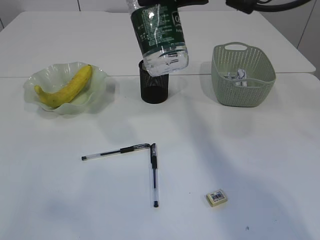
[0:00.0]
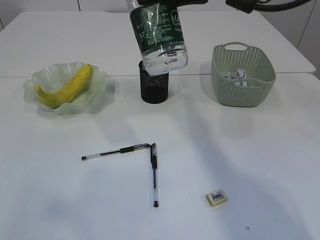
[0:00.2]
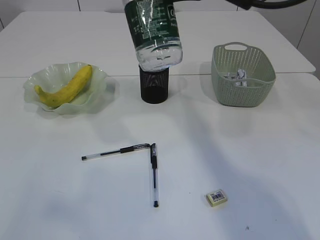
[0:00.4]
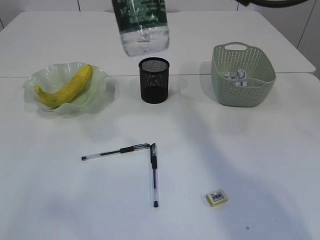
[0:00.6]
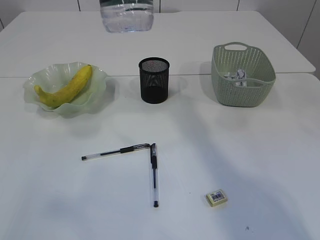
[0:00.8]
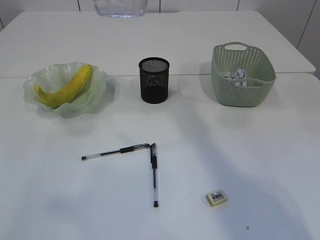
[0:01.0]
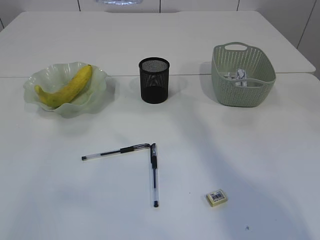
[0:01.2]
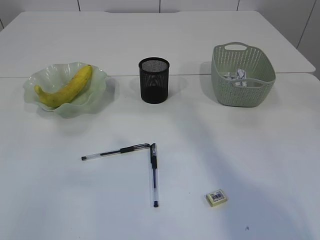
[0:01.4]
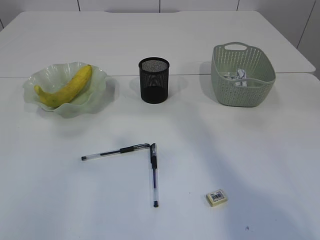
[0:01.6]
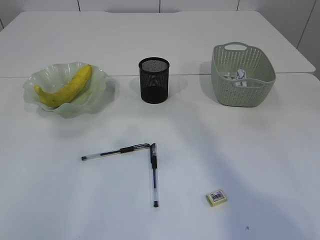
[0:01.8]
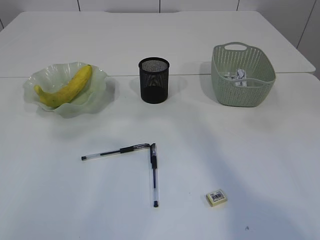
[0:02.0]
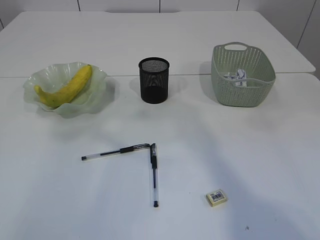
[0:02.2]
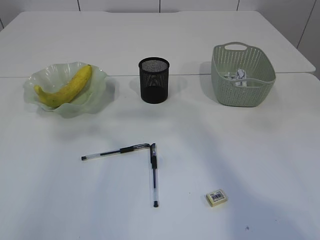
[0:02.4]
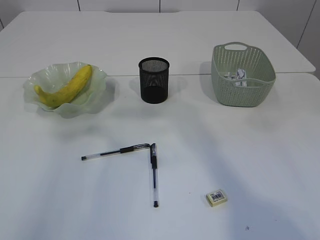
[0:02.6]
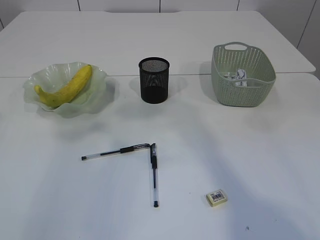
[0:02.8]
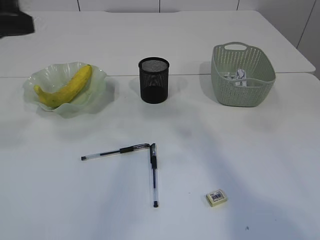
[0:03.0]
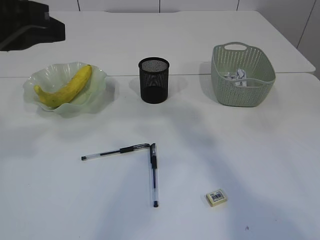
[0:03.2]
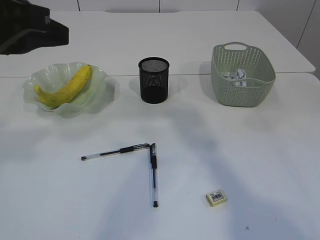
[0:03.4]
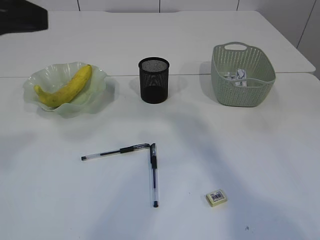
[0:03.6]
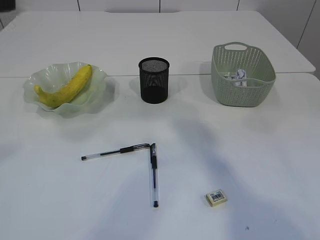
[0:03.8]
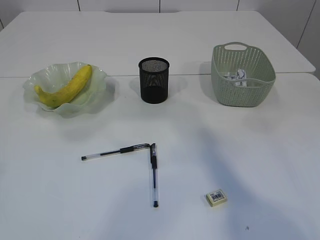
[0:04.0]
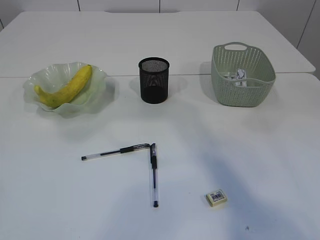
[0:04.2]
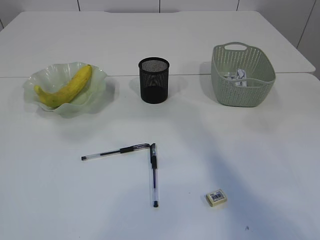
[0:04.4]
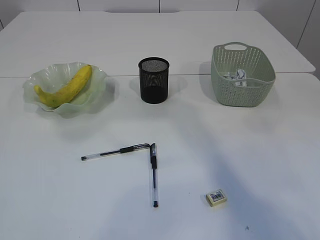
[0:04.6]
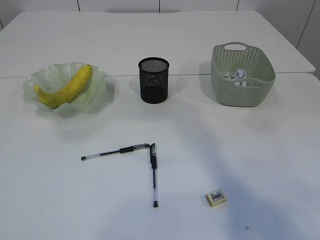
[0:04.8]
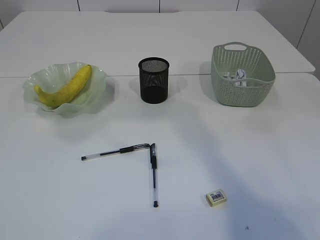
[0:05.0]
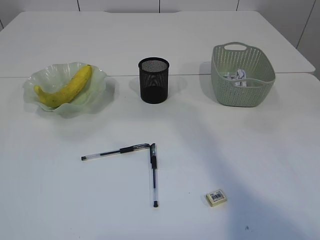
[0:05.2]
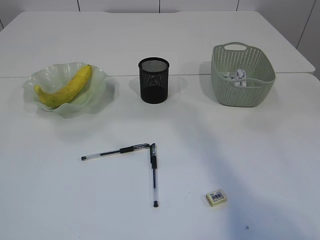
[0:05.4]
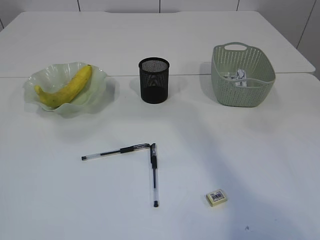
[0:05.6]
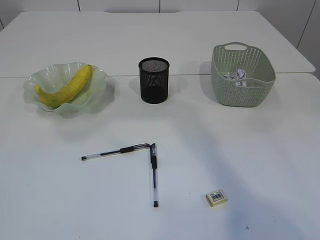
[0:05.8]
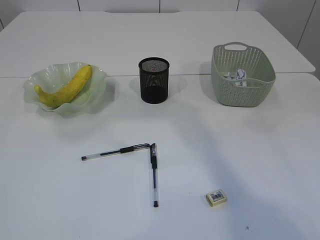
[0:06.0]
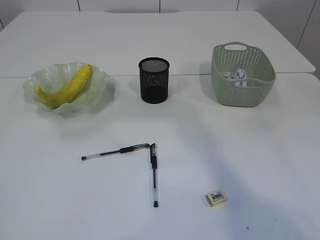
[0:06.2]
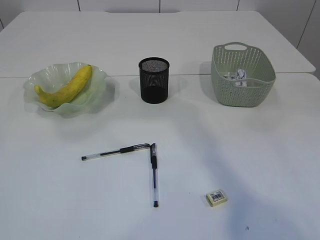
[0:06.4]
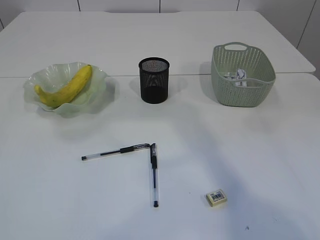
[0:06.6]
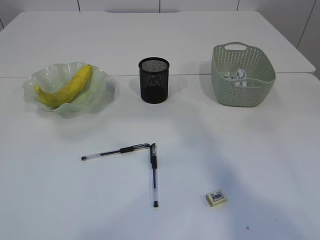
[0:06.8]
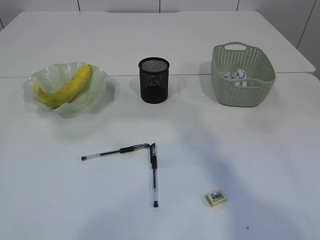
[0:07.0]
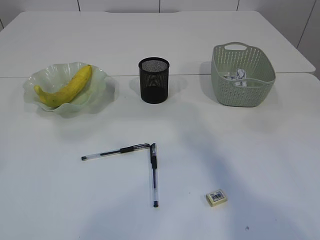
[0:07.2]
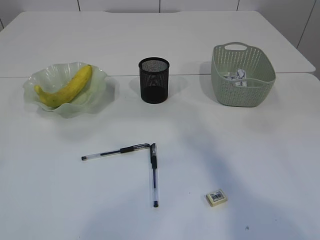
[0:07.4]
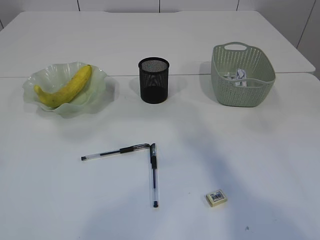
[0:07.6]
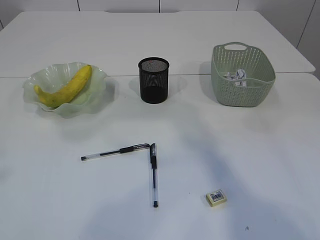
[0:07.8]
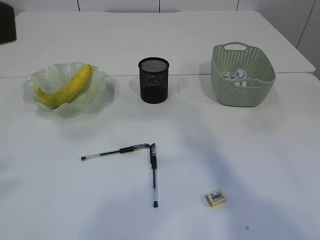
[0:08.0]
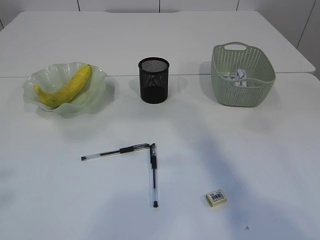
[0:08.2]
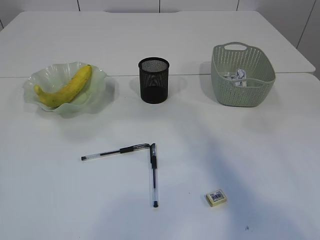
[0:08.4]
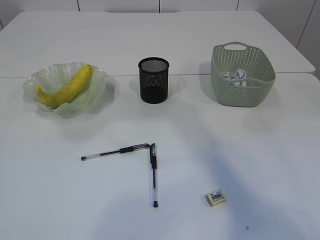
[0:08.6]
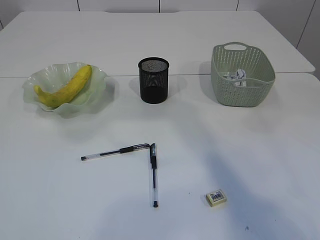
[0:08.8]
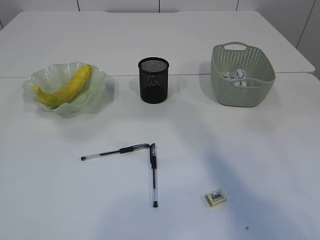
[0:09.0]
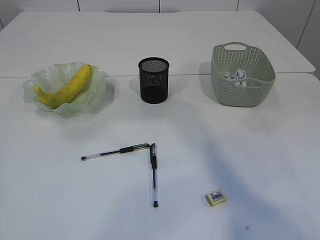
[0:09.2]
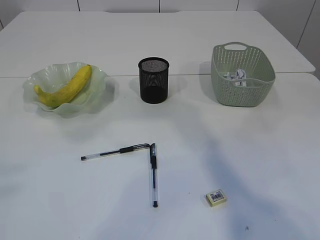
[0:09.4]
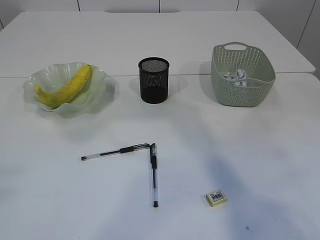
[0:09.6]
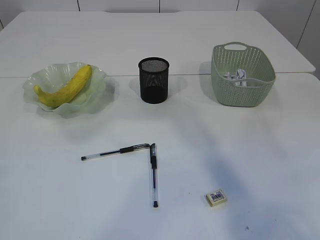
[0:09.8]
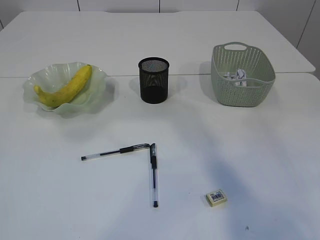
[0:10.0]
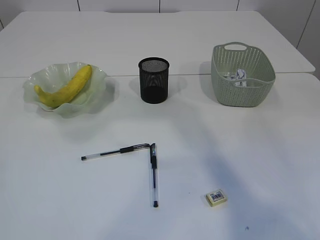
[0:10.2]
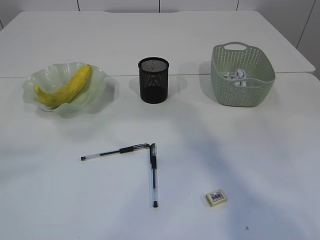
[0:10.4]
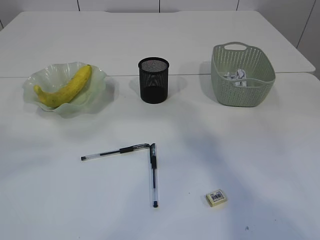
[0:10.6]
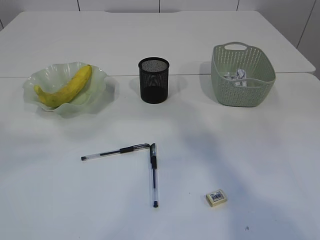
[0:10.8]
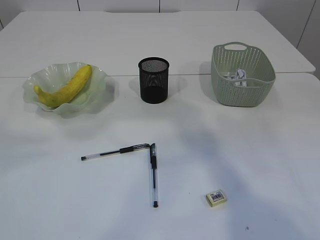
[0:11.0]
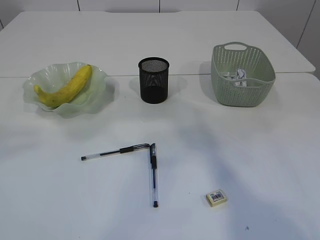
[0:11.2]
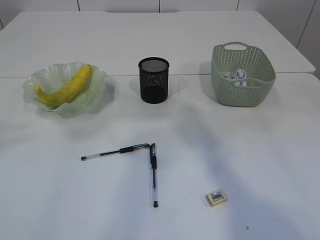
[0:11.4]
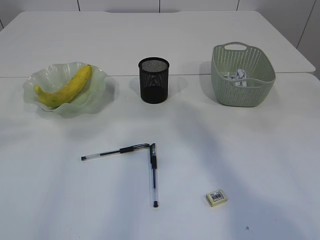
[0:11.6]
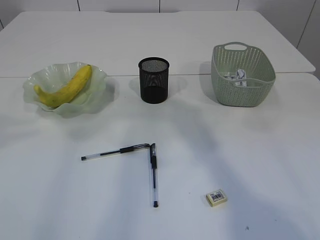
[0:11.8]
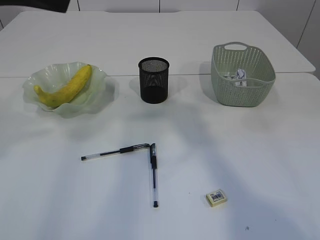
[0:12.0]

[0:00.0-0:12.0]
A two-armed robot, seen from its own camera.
0:00.0 to 0:01.6: The left gripper goes roughly 5 cm forward; the right gripper goes some 10 cm upward.
0:01.6 to 0:03.0: The left gripper heads forward, downward and to the right, covering about 20 cm.
0:03.0 to 0:04.4: The left gripper moves backward and upward, some 20 cm.
0:10.4 to 0:12.0: The left gripper heads forward and downward, covering about 15 cm.

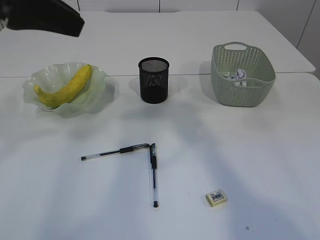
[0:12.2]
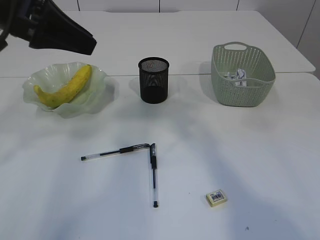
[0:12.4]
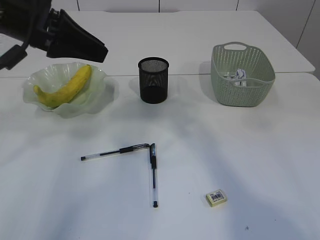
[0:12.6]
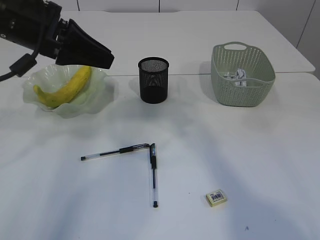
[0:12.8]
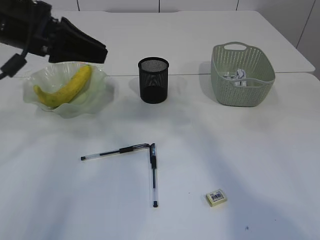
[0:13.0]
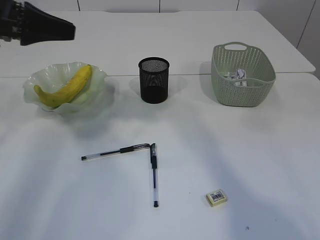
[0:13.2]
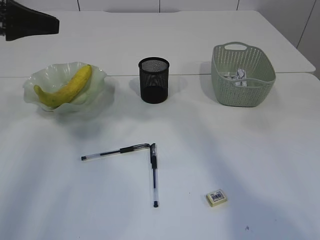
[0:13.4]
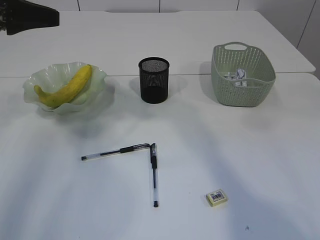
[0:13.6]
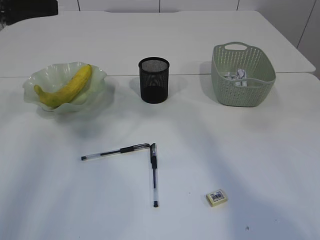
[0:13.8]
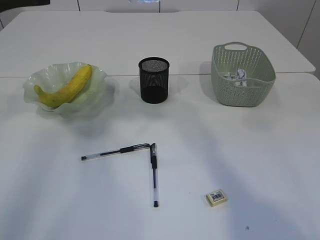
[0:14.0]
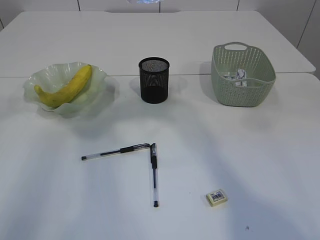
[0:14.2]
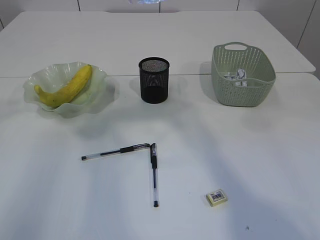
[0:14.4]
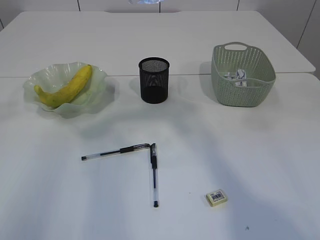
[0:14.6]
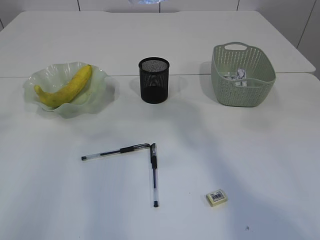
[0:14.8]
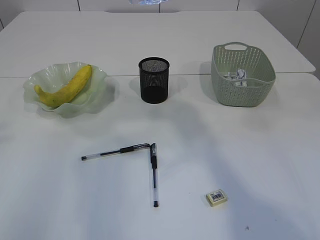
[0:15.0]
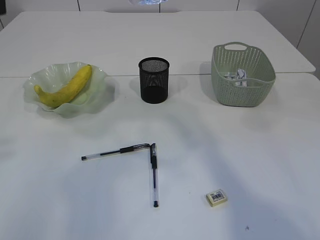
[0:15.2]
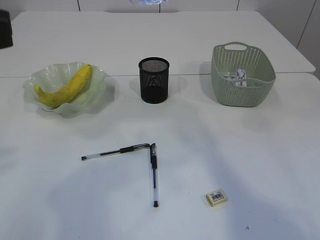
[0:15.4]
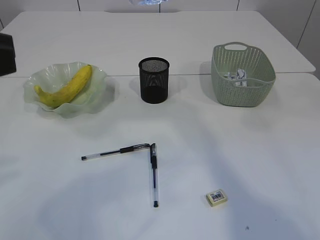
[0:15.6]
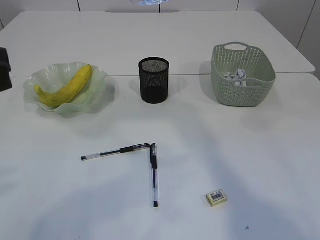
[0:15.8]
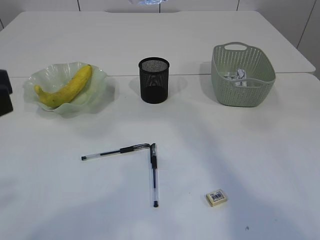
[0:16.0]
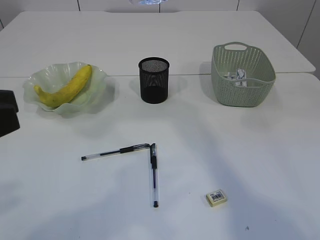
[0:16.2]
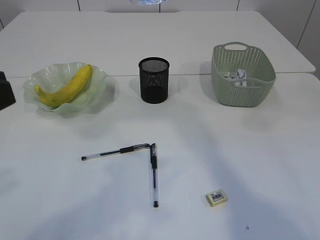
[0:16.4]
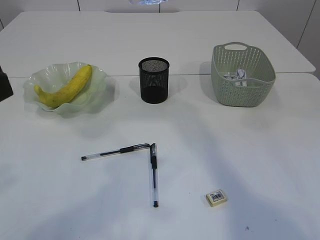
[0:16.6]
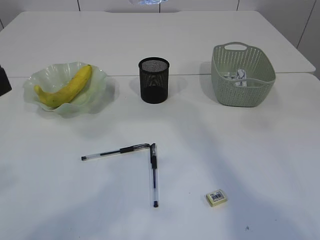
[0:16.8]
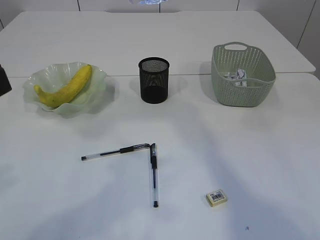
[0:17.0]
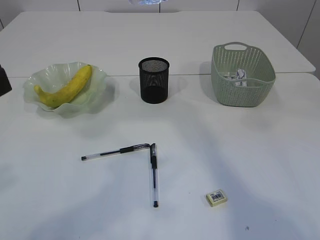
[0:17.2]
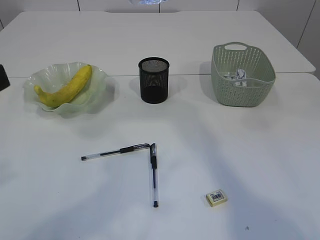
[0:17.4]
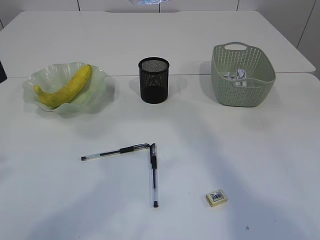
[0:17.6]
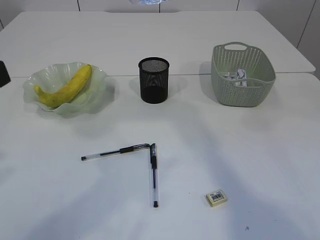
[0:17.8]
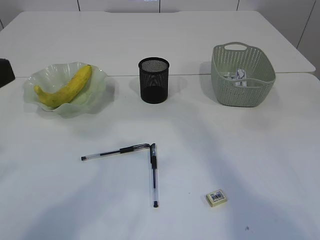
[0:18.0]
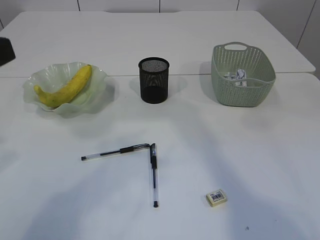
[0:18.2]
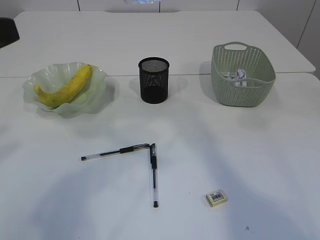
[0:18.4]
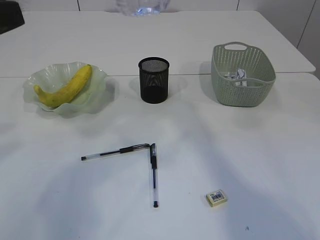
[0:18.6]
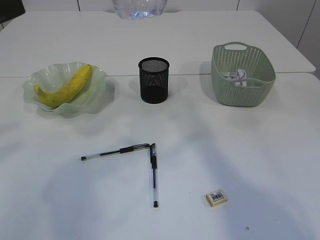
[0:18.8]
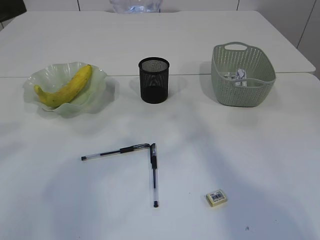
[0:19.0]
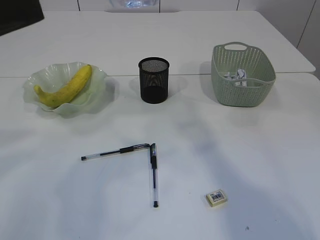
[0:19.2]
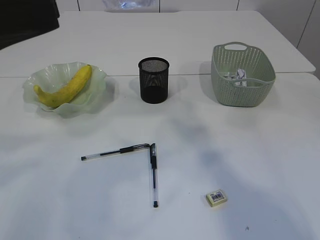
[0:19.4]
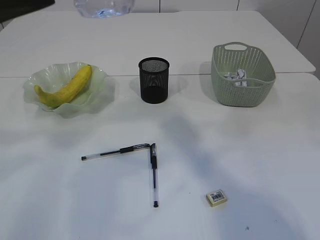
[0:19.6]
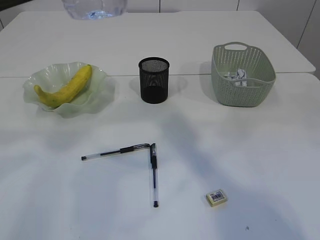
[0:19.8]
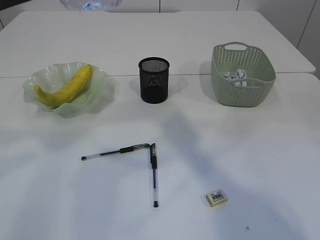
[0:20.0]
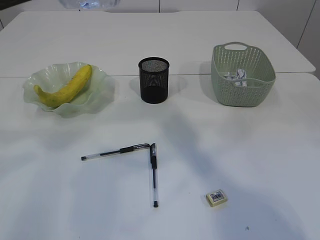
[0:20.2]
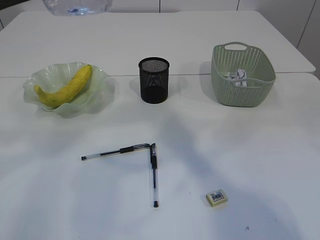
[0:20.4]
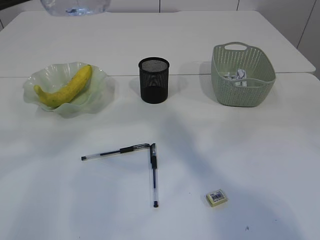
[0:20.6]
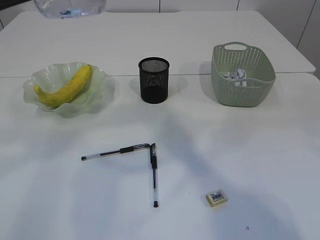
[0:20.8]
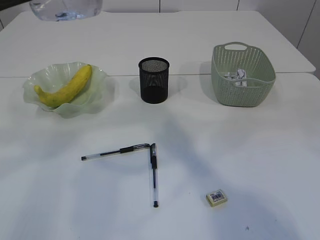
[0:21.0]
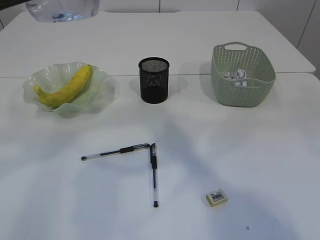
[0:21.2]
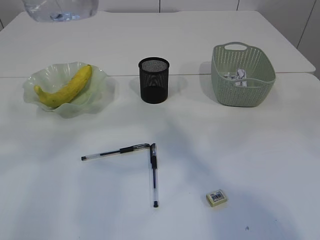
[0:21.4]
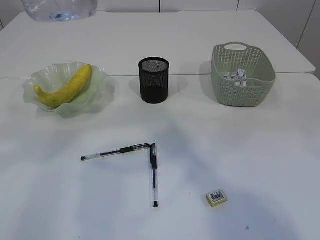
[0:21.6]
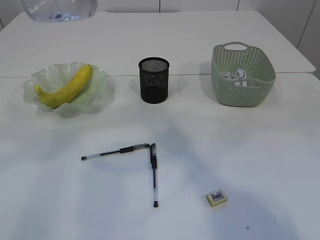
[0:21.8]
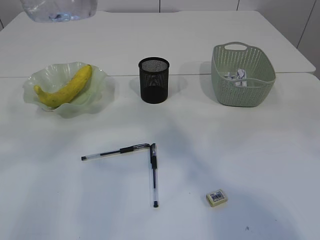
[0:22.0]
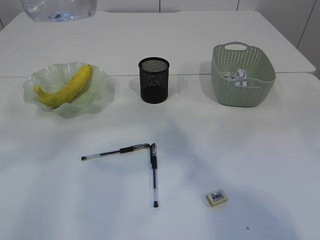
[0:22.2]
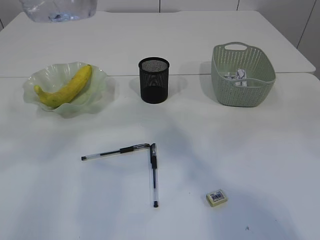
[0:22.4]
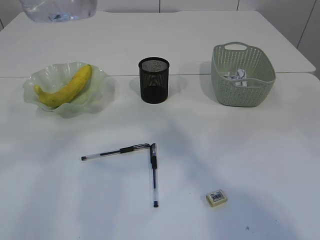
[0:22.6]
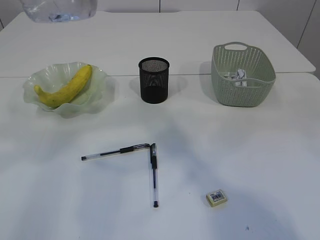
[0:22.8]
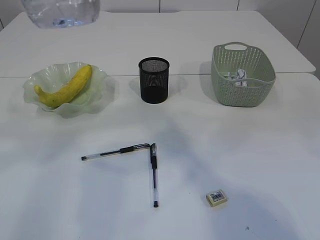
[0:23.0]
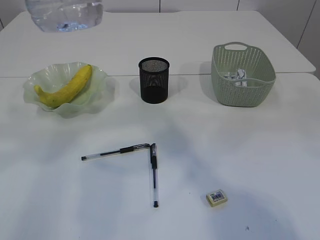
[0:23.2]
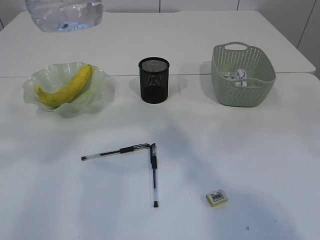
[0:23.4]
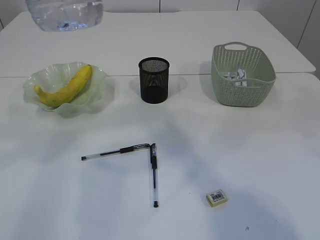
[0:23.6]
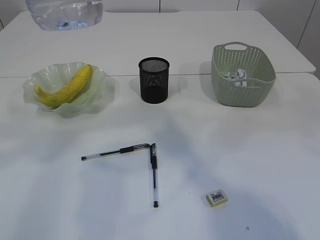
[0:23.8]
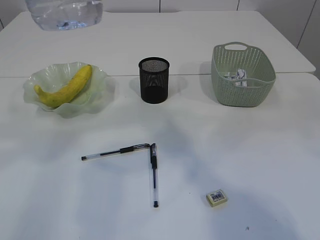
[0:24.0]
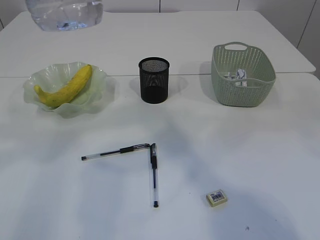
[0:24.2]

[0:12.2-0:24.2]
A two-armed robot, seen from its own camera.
0:12.2 to 0:13.8: The left gripper is displaced forward, to the left and downward by roughly 15 cm.
0:13.8 to 0:15.2: The left gripper travels backward by approximately 20 cm.
0:16.6 to 0:18.2: The left gripper opens.
0:18.2 to 0:19.8: The left gripper heads upward and to the right, covering roughly 5 cm.
